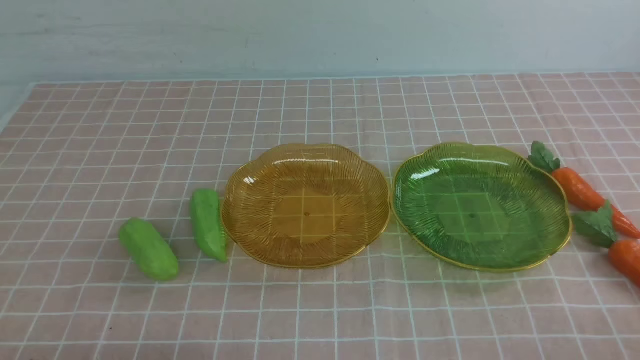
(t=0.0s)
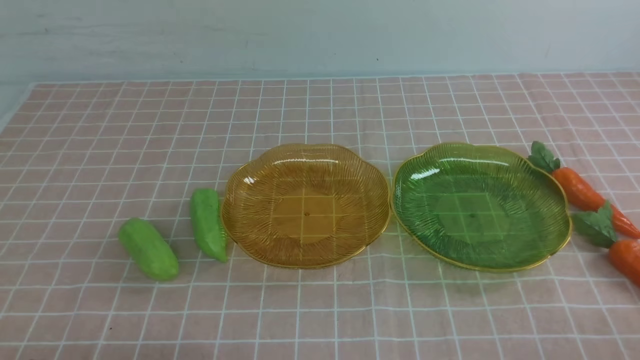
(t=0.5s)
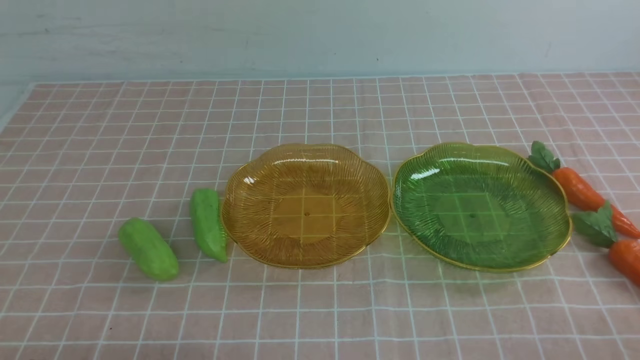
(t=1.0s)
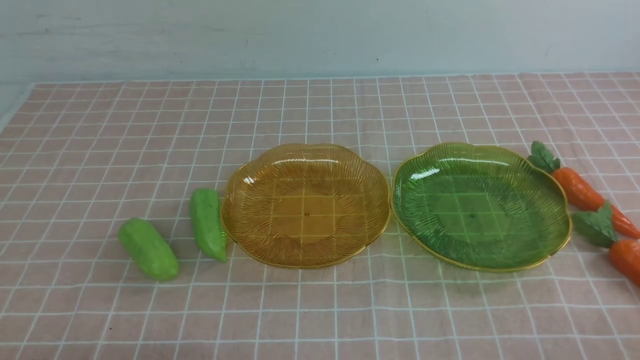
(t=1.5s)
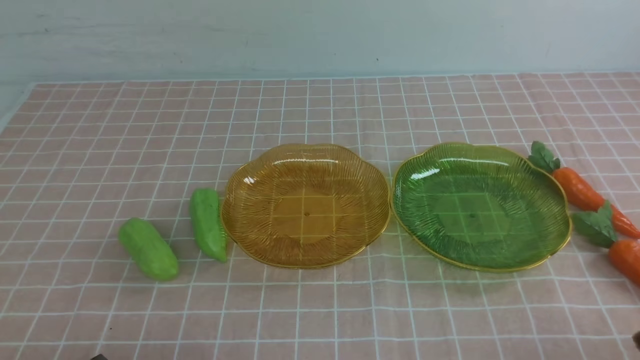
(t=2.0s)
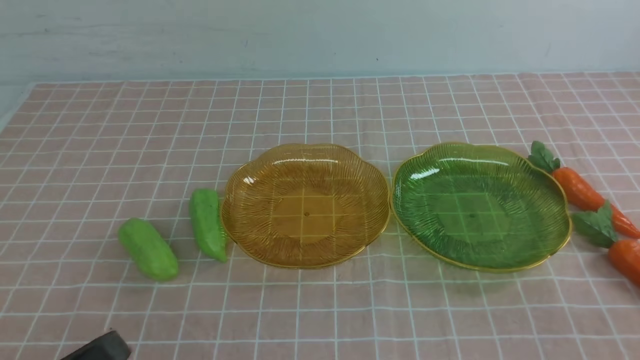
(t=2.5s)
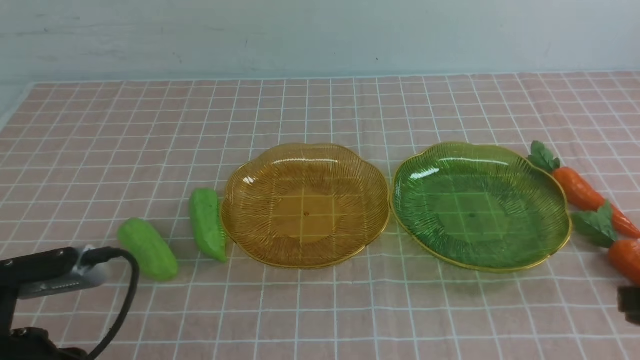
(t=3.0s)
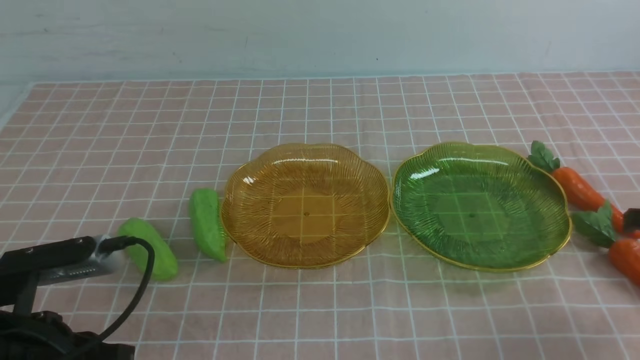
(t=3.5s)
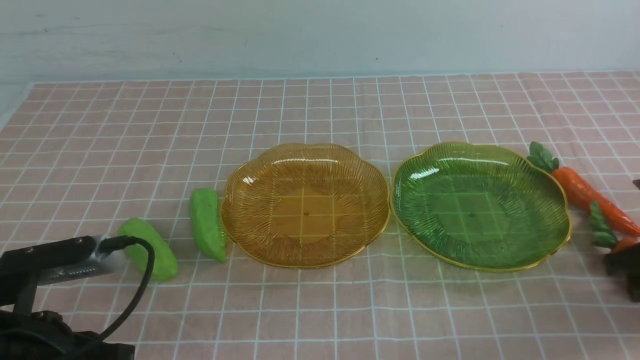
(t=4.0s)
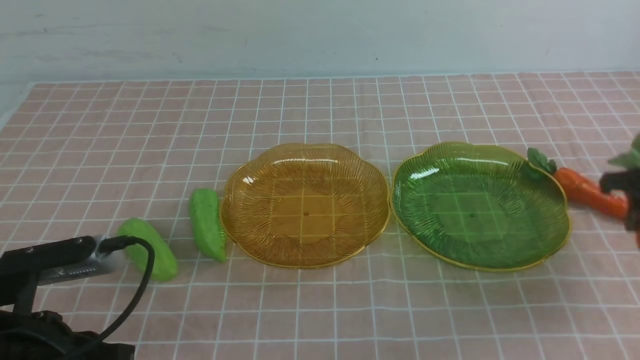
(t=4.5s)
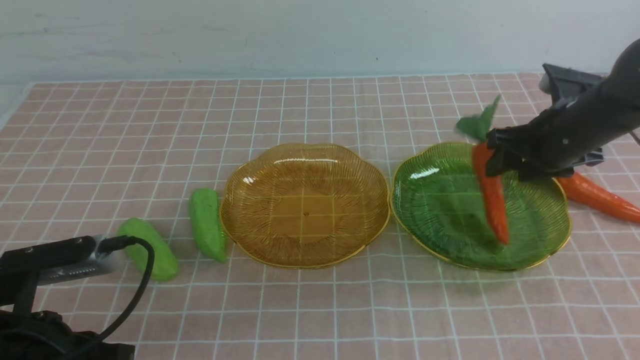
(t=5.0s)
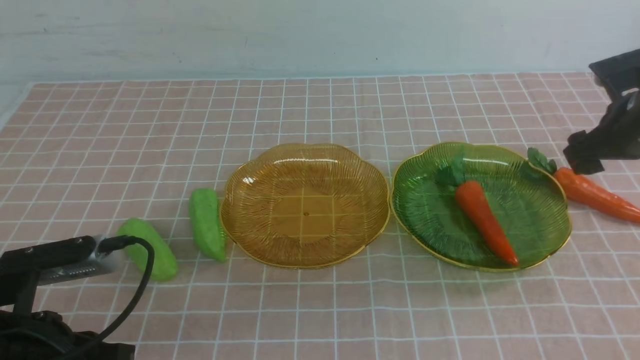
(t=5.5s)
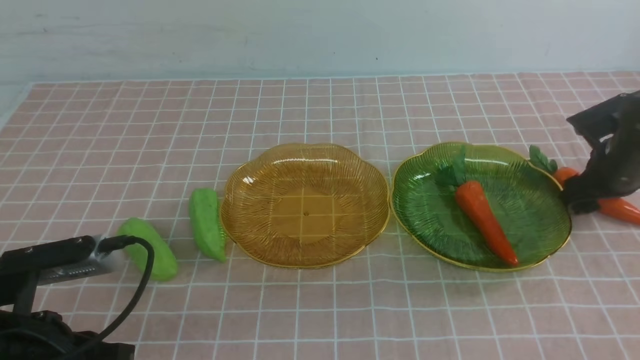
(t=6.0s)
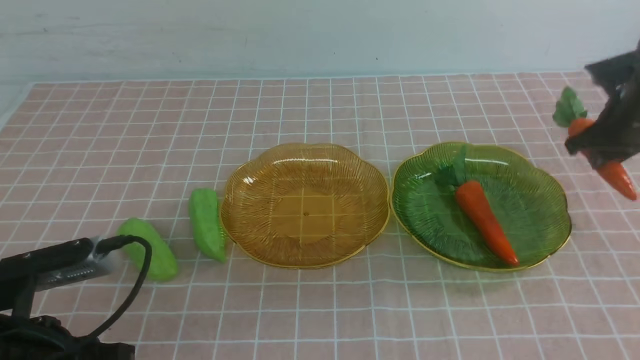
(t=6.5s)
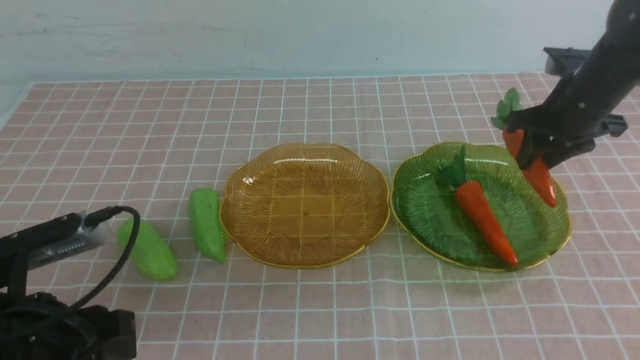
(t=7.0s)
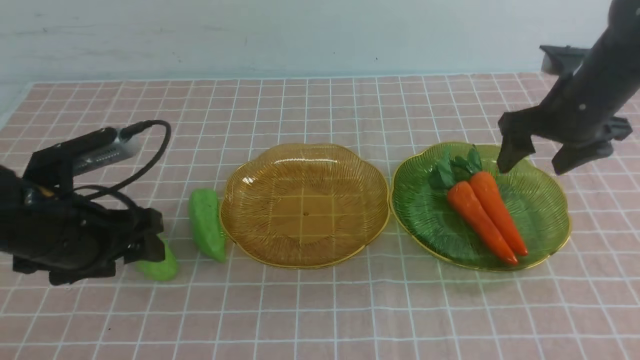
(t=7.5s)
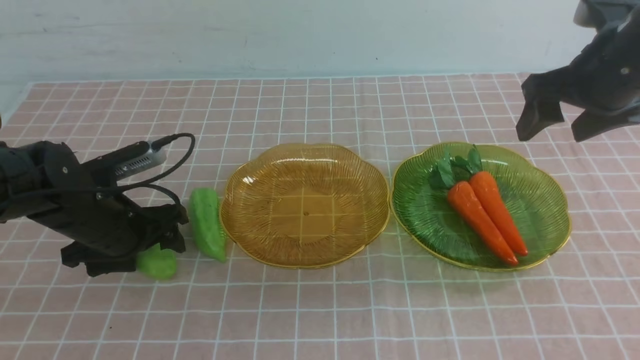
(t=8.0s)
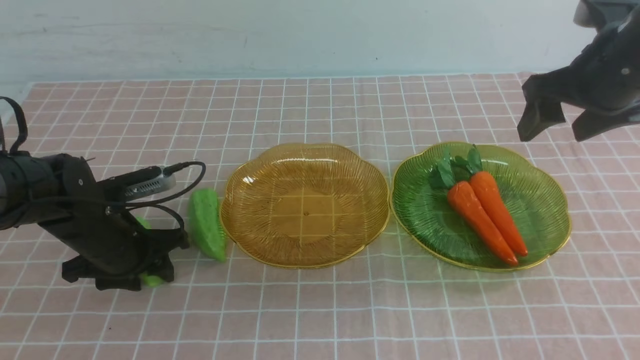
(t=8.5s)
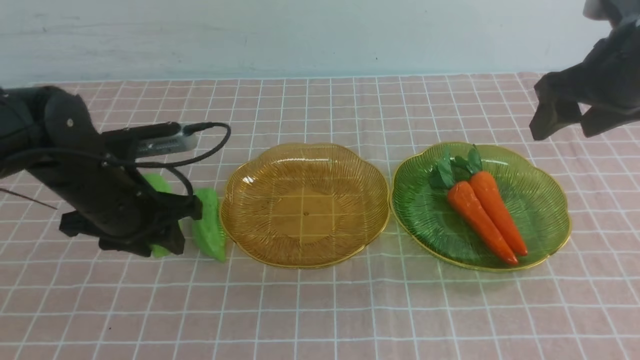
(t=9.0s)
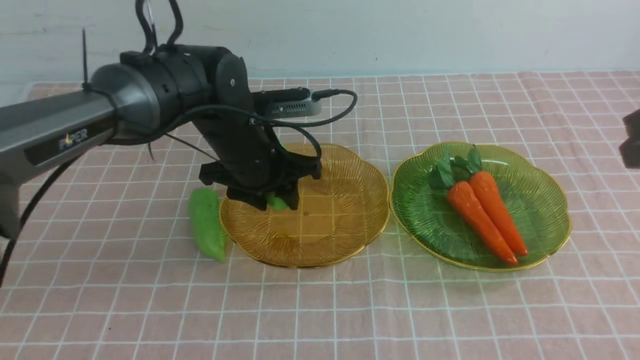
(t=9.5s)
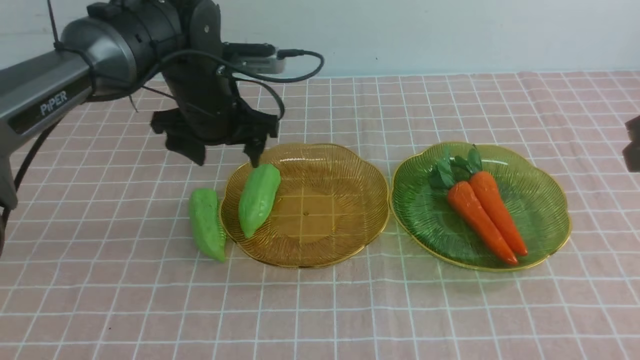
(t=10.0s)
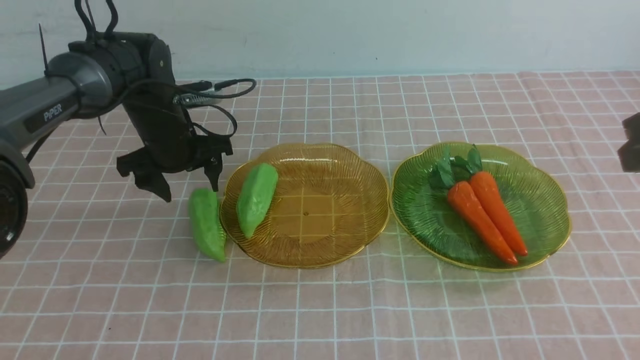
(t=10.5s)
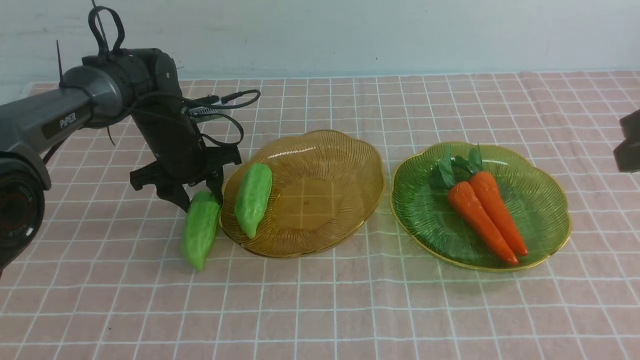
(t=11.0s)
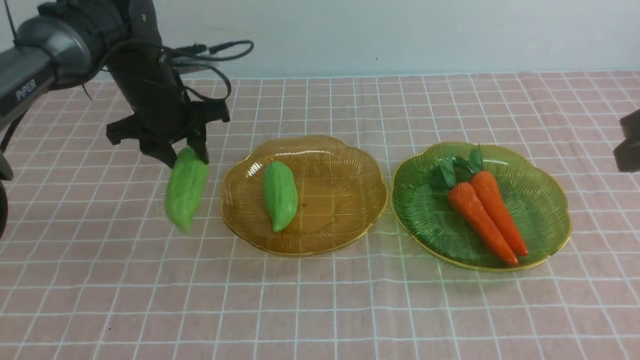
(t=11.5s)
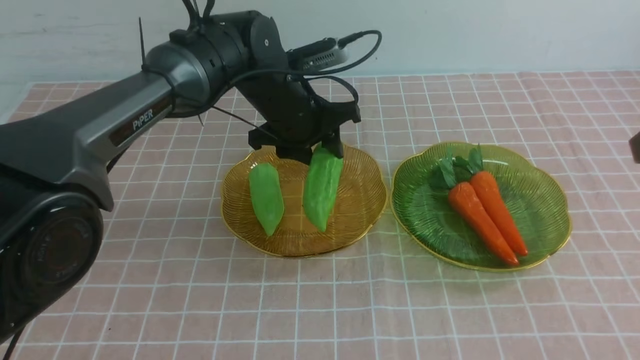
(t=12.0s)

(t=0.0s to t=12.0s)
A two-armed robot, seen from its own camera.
Step, t=0.0s - t=7.0s: use the right arm to grab a carrot and put it into the right plate.
Step, t=7.5s - t=9.5s: use the left arm to grab a chayote and put it into the left plate.
t=2.0s - t=4.0s: The right gripper heads forward, covering about 25 cm, and opens. Meanwhile the left gripper travels forward and upward by approximately 10 cm.
t=4.0s - t=6.0s: The right gripper heads forward, covering about 10 cm.
t=6.0s - t=8.0s: The right gripper heads upward and to the left, covering some 20 cm, and closes and opens again, while the left gripper is displaced forward by some 20 cm, and opens up.
t=8.0s - t=10.0s: The right gripper is displaced backward and upward by approximately 15 cm, and closes up. Meanwhile the left gripper travels forward by some 15 cm, and closes, then reopens.
t=10.0s - t=12.0s: The right gripper is displaced backward by approximately 20 cm. The left gripper goes about 15 cm to the right and upward, and closes up.

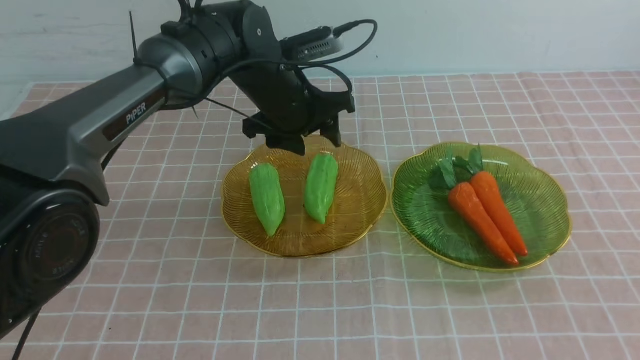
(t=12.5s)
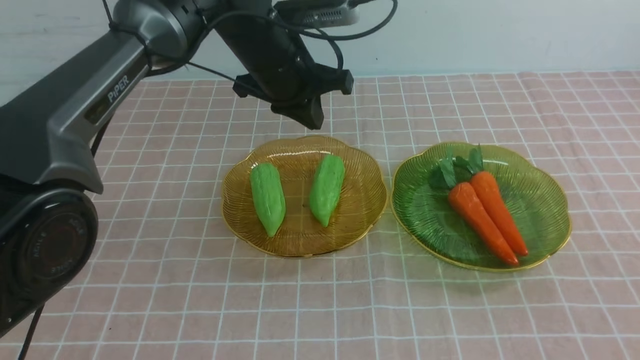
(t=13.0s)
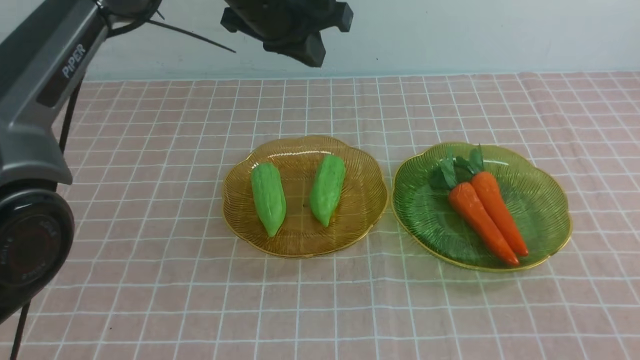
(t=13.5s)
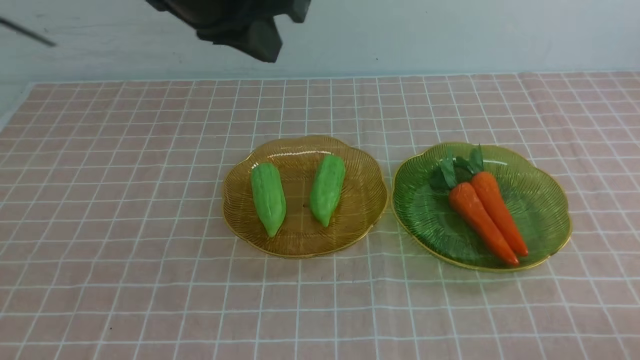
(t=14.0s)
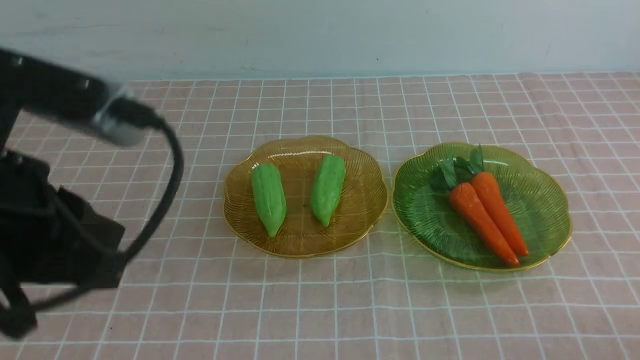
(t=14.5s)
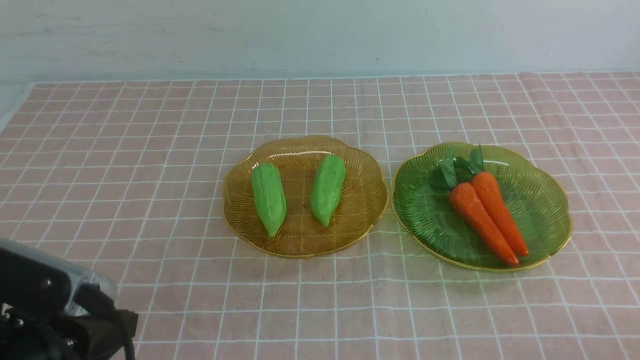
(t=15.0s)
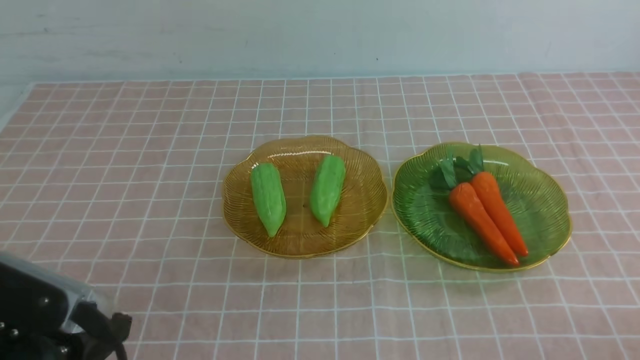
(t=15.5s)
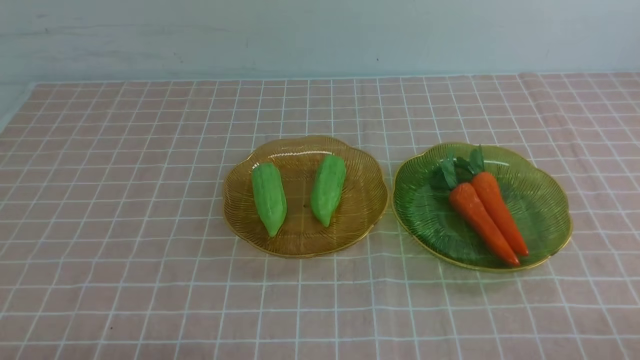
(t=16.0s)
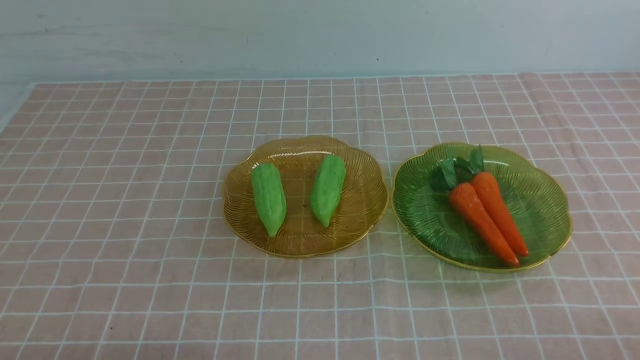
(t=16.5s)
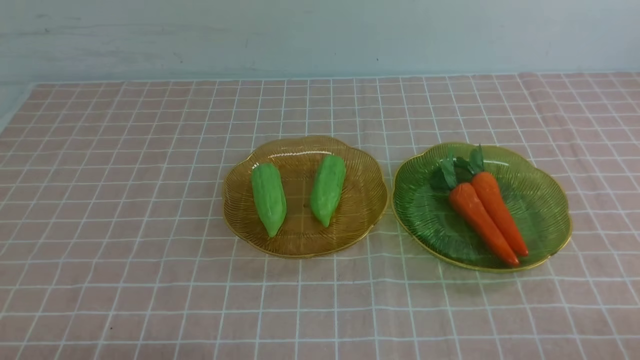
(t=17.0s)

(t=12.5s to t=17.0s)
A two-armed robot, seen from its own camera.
t=12.5s - t=14.5s: The right gripper goes approximately 10 cm downward, while the left gripper goes about 35 cm backward and to the left.
t=14.5s - t=17.0s: The left gripper is displaced downward and to the left by approximately 10 cm.
